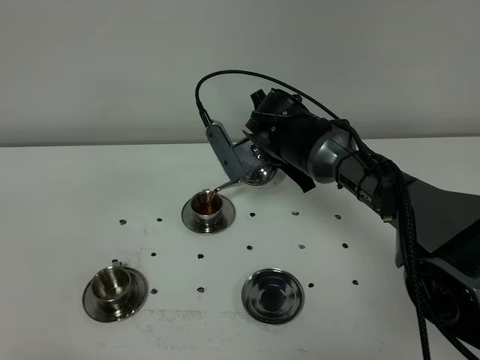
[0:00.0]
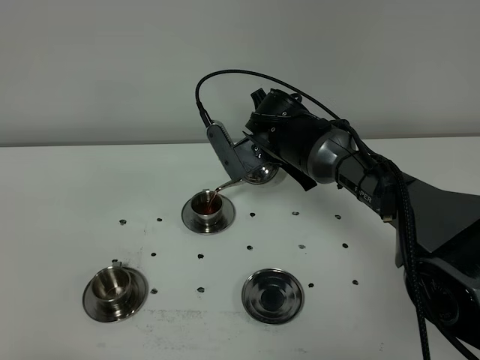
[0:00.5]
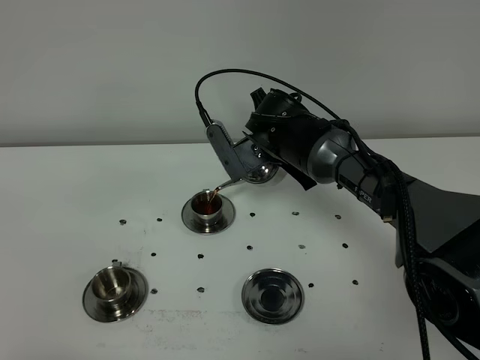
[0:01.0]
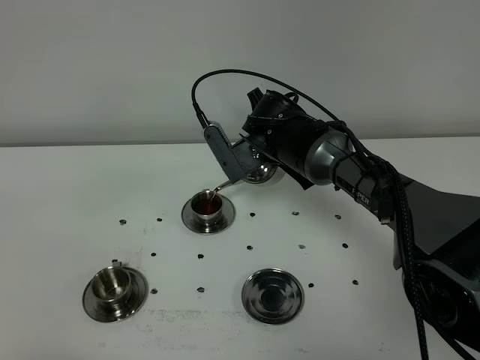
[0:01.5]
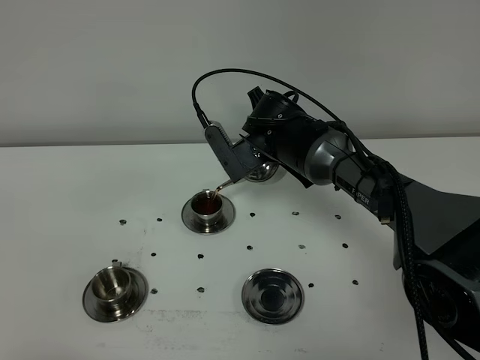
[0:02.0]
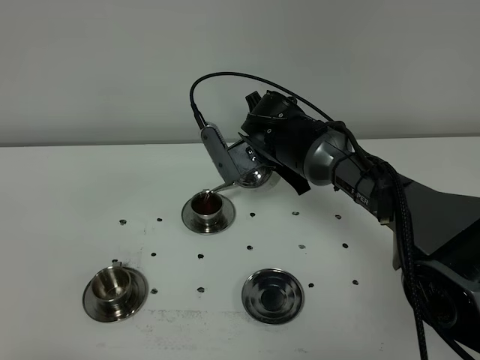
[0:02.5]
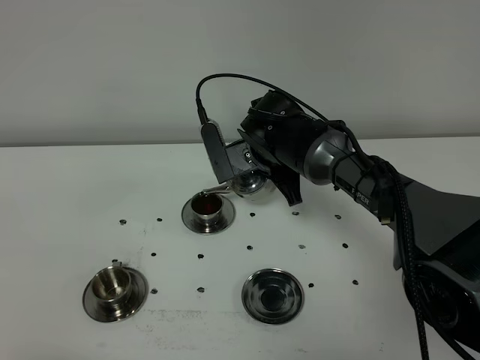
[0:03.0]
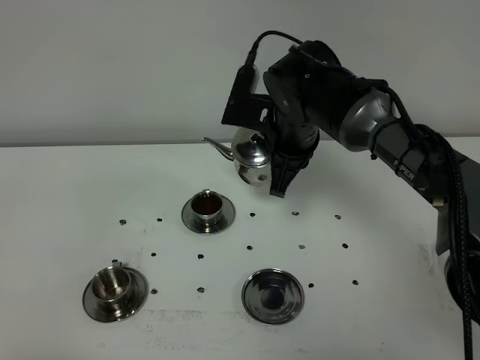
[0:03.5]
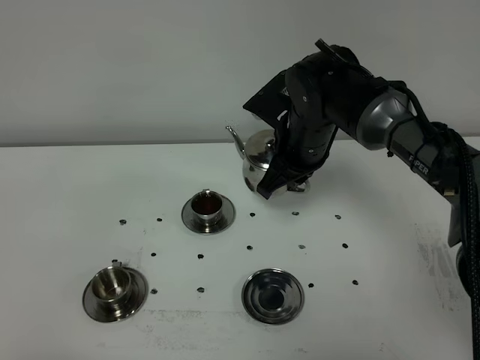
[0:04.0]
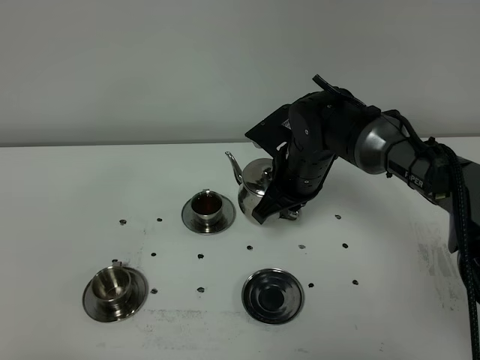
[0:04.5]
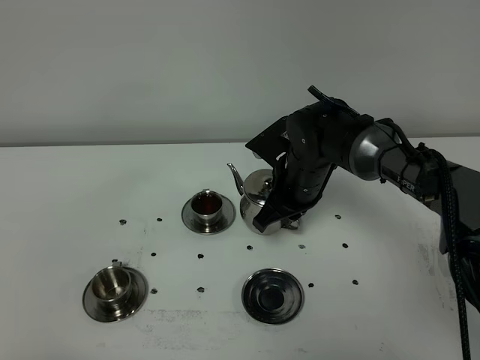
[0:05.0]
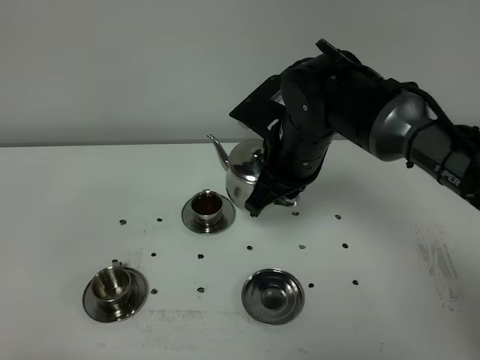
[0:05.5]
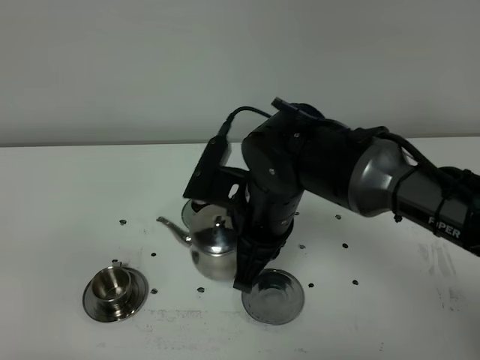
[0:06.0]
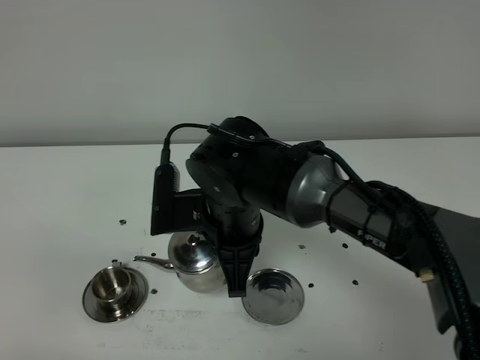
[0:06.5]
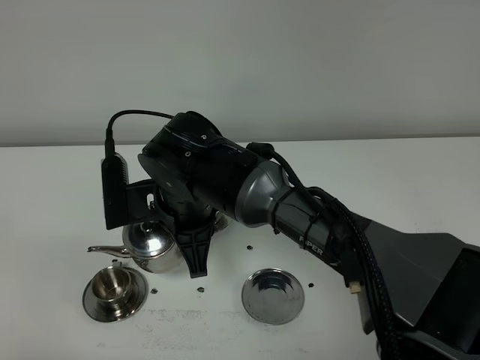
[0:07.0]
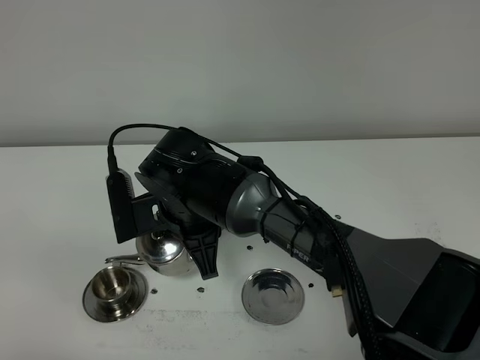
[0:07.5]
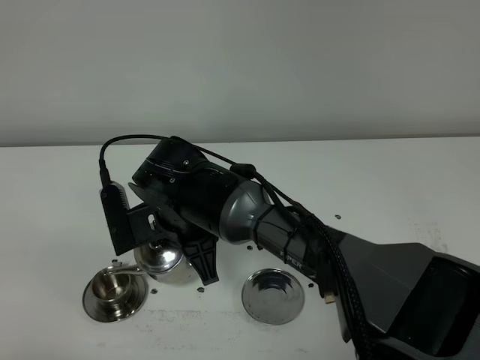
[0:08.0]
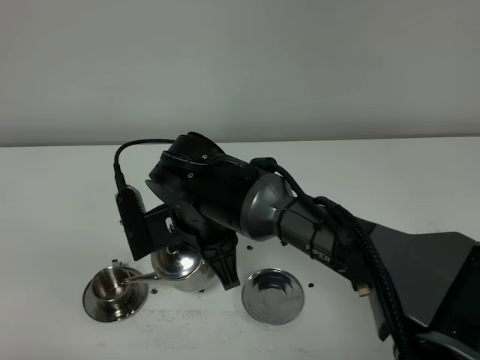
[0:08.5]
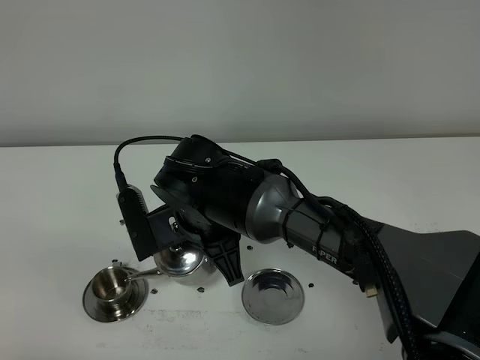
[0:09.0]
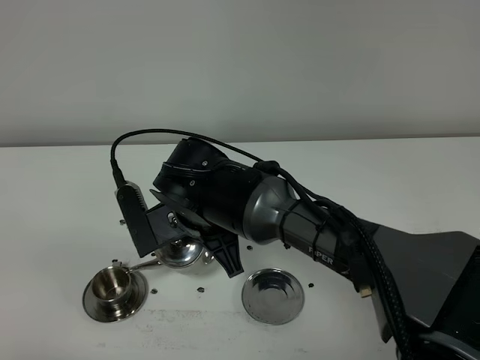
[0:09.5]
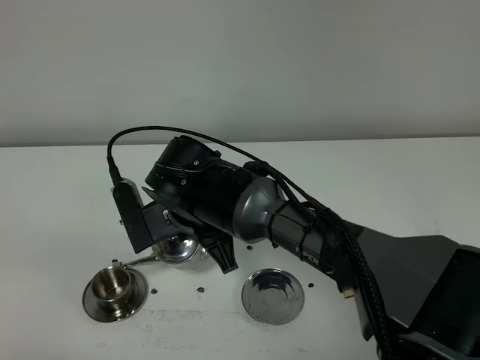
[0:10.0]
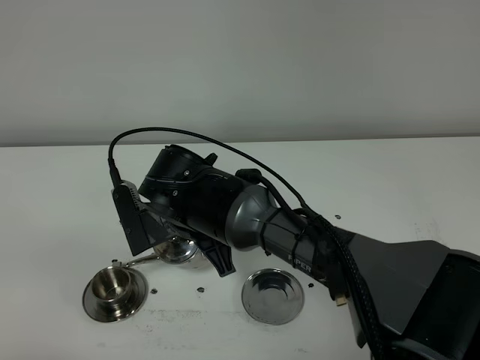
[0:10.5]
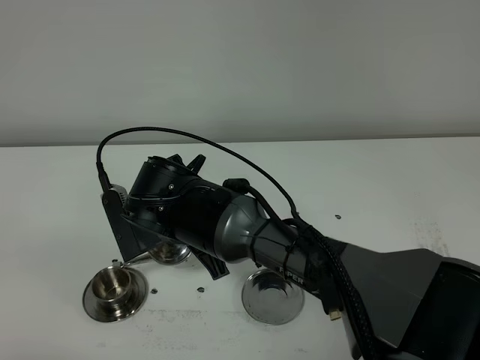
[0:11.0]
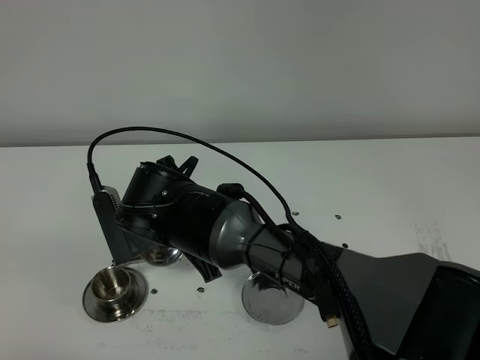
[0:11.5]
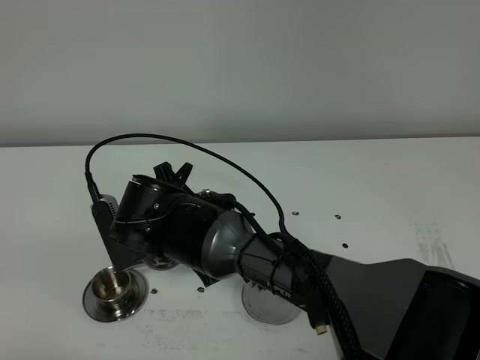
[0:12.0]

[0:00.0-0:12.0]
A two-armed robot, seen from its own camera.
Task of the whole recording: grasp the stainless steel teapot and pour the tea into the two stainless steel teacups one by one, put the stainless steel teapot back in its original place.
0:00.0 to 0:02.0: The two grippers keep their place.
0:02.0 to 0:04.0: The right gripper shifts by approximately 5 cm.
0:04.0 to 0:06.0: The right gripper moves backward and to the left, approximately 15 cm.
0:06.0 to 0:08.0: The right gripper is displaced to the left by about 10 cm.
0:08.0 to 0:12.0: The grippers stay close to where they were, moving slightly.

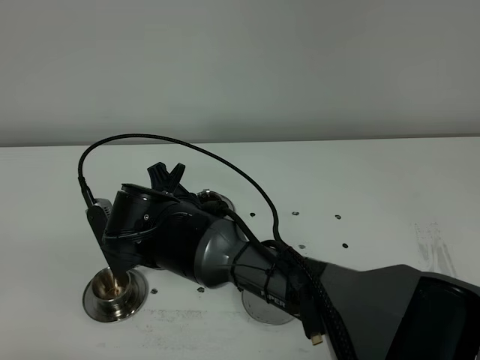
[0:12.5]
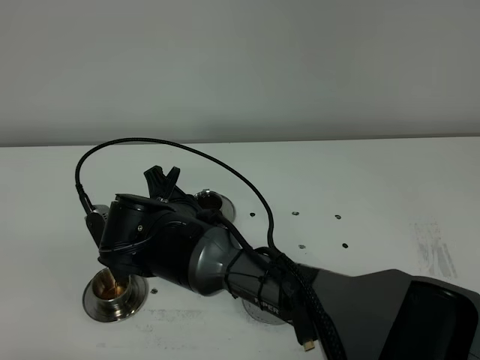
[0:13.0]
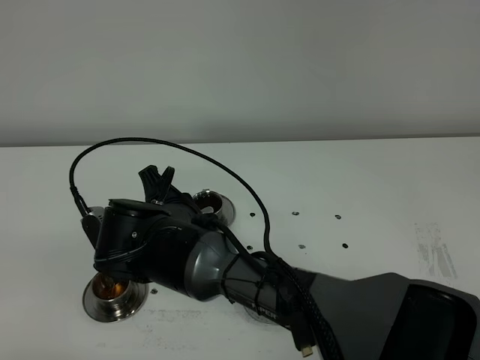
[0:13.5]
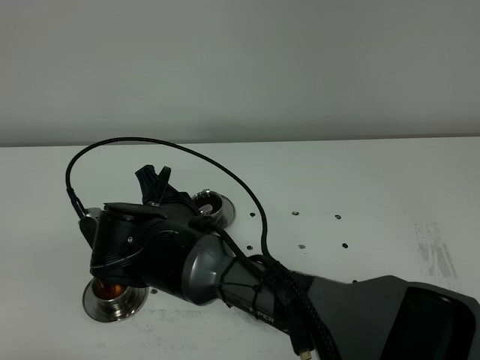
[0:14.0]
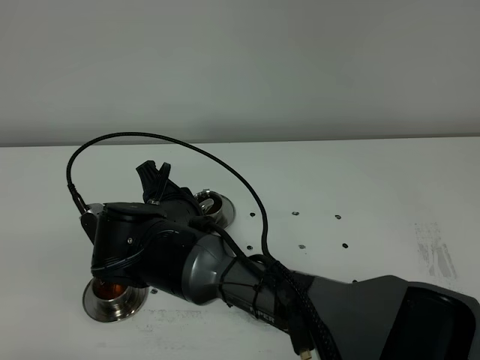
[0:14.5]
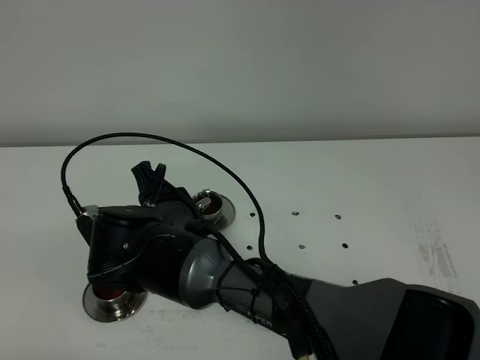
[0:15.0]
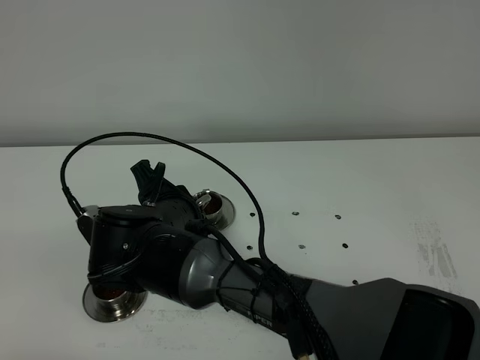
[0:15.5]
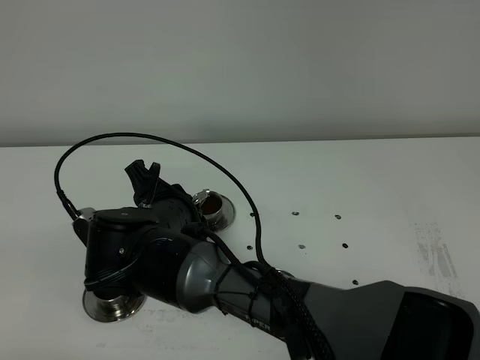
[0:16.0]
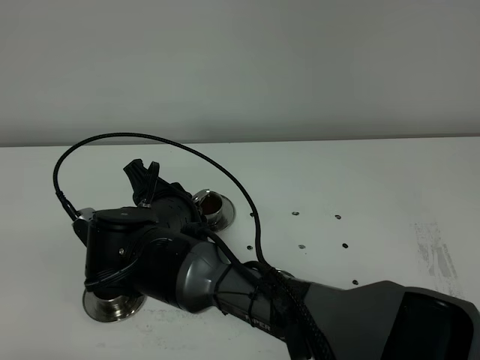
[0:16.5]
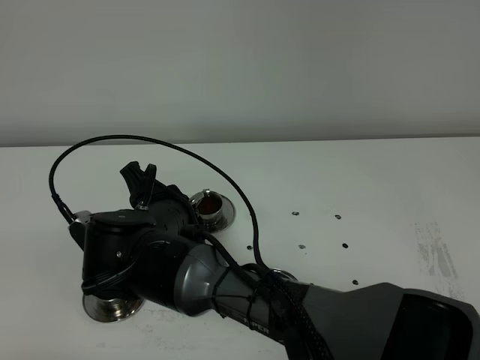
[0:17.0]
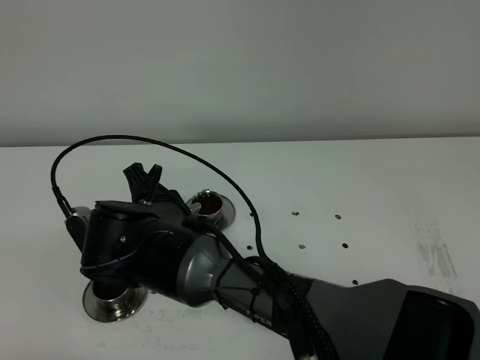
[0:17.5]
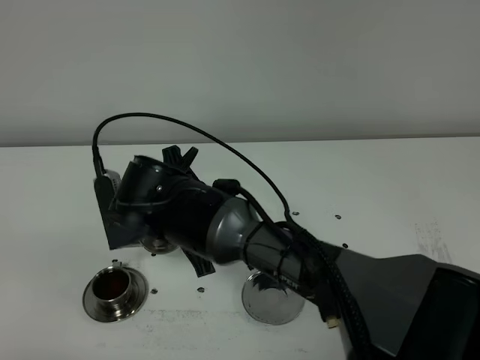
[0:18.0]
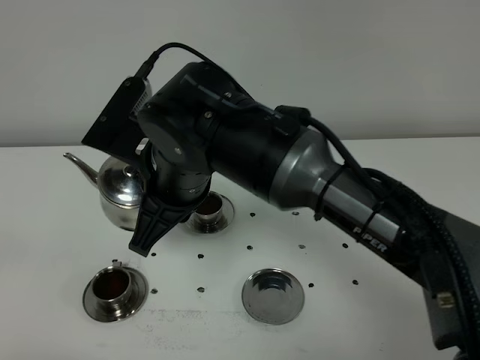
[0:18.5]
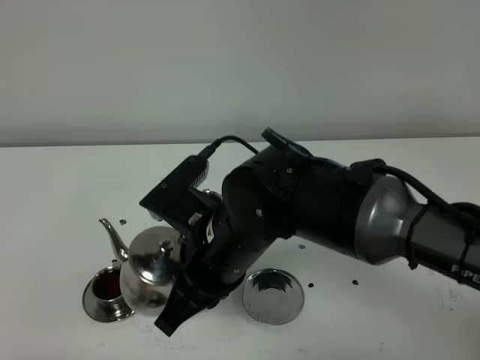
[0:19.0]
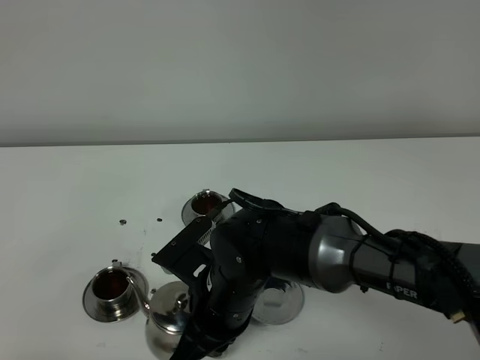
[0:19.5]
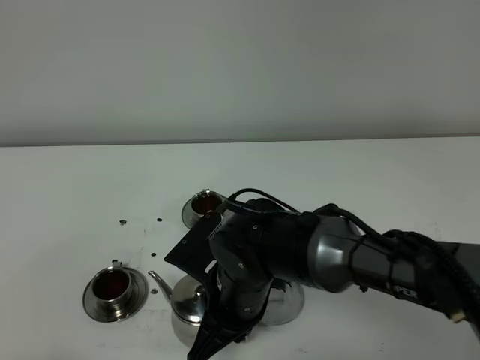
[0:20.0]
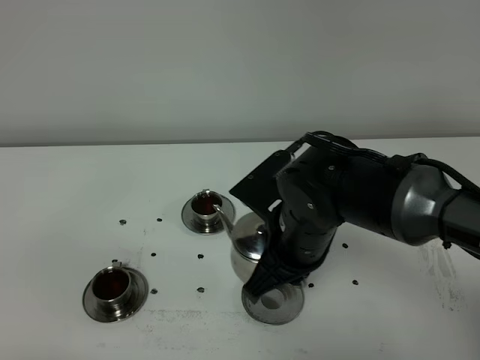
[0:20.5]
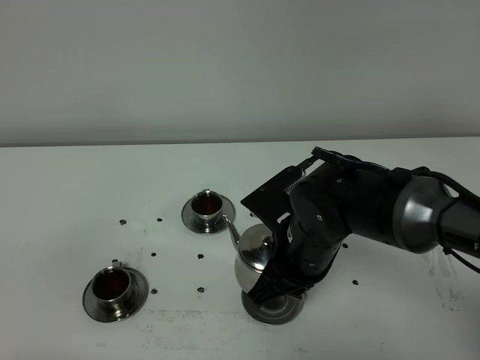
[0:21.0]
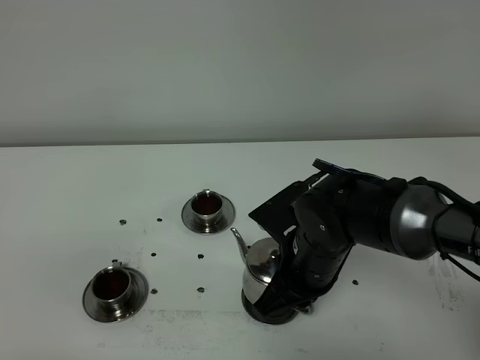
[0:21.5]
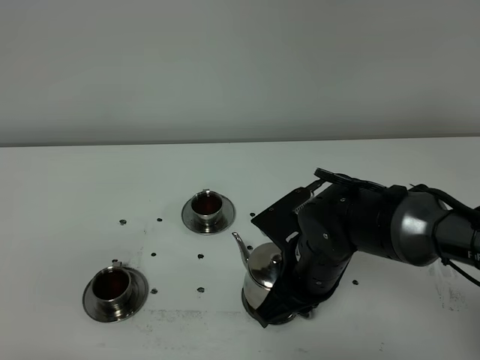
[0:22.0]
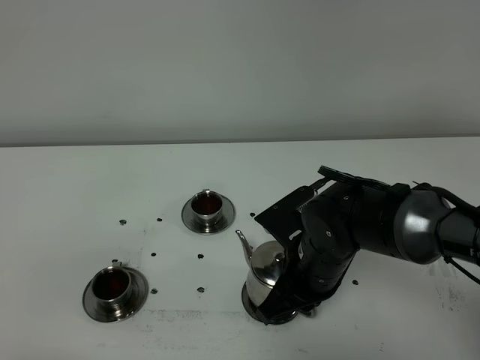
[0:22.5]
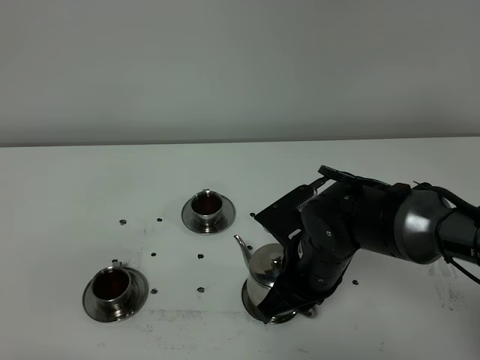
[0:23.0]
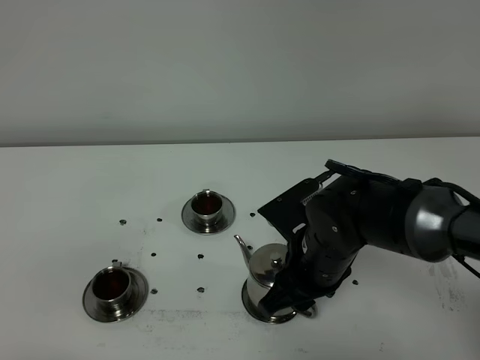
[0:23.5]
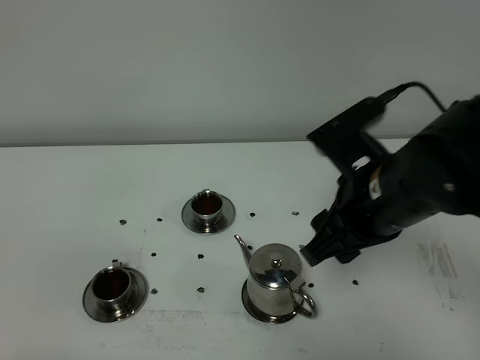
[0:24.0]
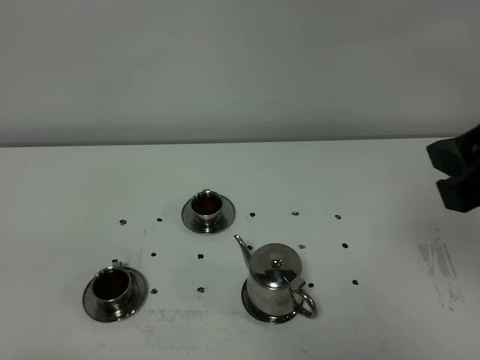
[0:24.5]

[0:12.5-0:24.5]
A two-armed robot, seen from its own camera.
Task of the whole recording: grasp the stainless steel teapot and pour the tea into the two stainless steel teacups one by one, put the stainless steel teapot back in its original place.
Step, 0:12.5 to 0:17.5: Pour tea into the teacup with the right gripper.
0:12.5 to 0:16.5: The grippers stay close to where they were, moving slightly.
0:16.5 to 0:18.5: The right gripper heads upward, covering about 10 cm.
0:18.5 to 0:20.5: The right gripper goes about 15 cm to the right and downward.
0:20.5 to 0:22.5: The right gripper goes about 5 cm downward.
0:22.5 to 0:24.5: The right gripper shifts about 30 cm upward, to the right and backward, and opens its fingers.

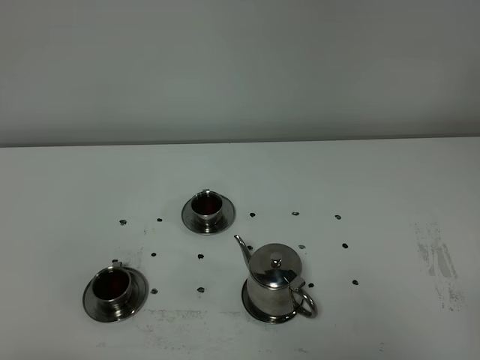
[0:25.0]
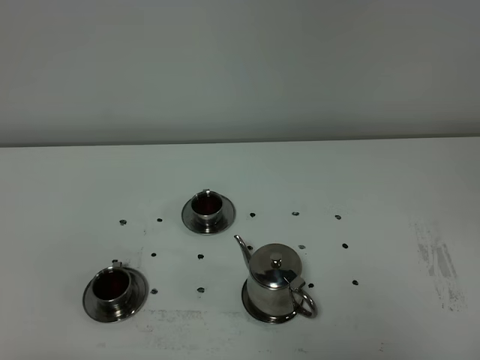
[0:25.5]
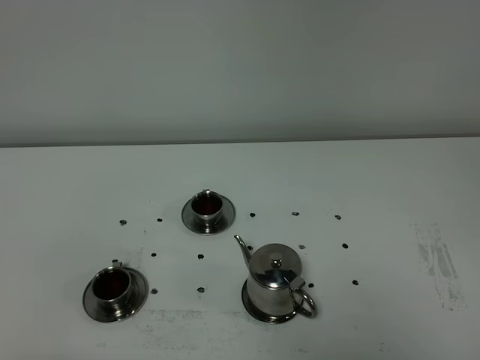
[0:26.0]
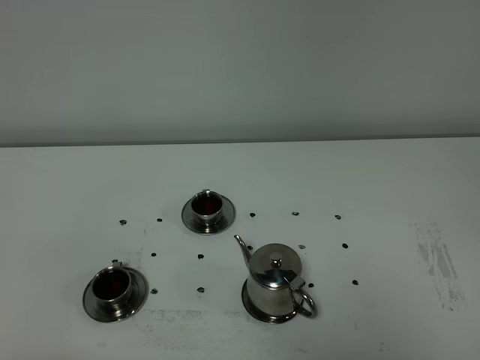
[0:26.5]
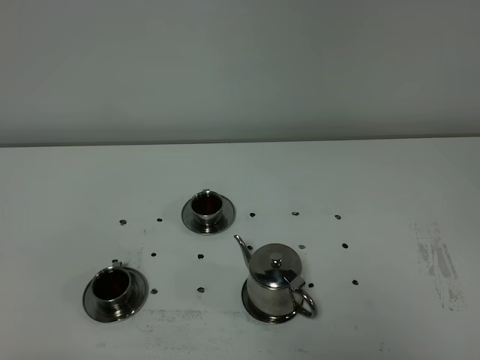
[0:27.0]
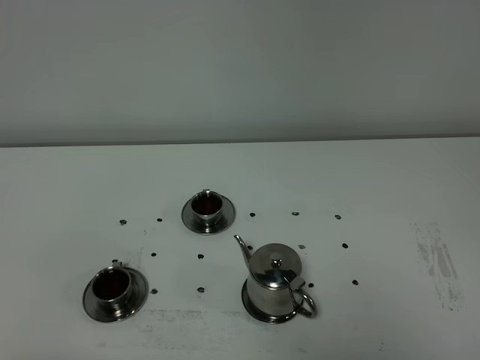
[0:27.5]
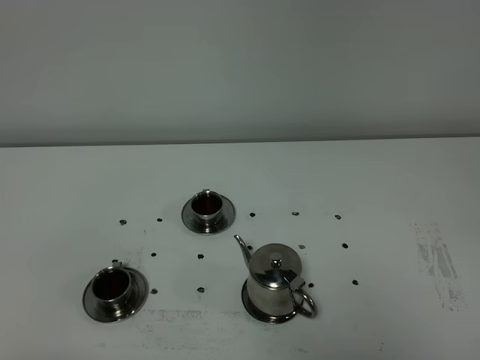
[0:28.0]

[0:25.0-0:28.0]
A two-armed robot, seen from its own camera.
Task of the whole recording: grasp the stainless steel teapot and pour the tea into the two stainless steel teacups one by one, put the stainless steel teapot back in its original place.
0:26.5 to 0:28.0: The two grippers keep their place.
